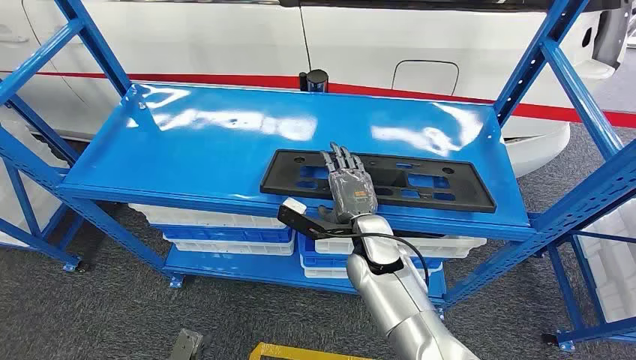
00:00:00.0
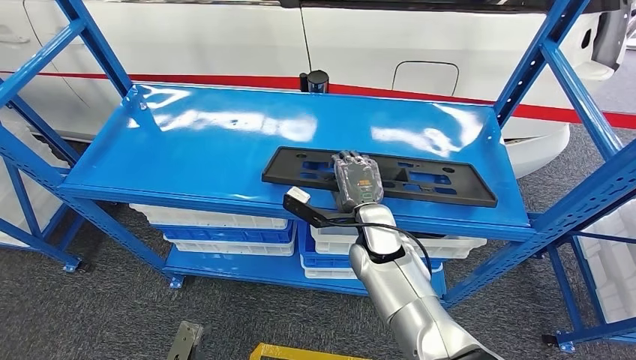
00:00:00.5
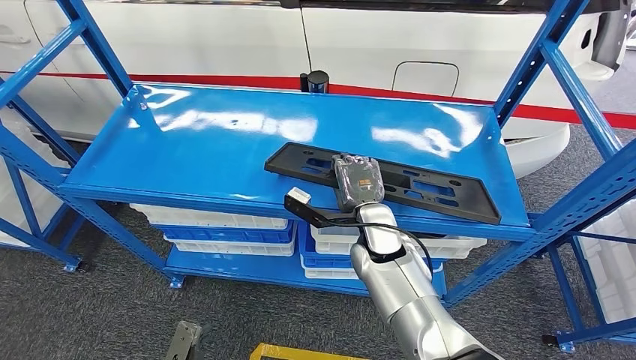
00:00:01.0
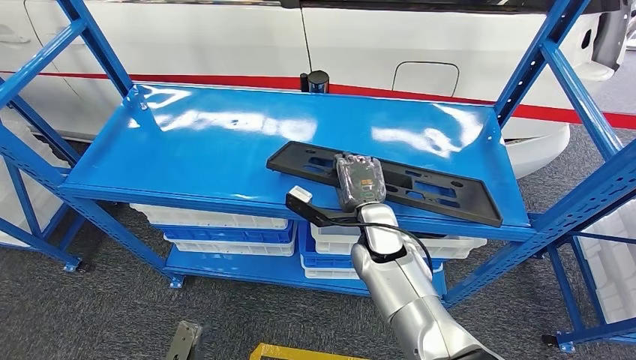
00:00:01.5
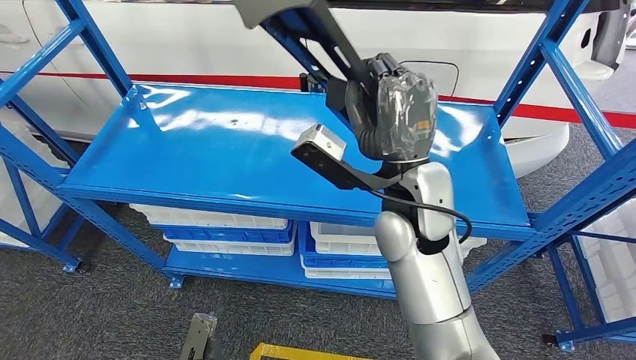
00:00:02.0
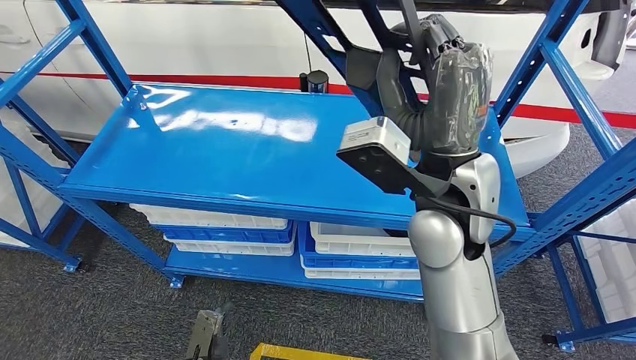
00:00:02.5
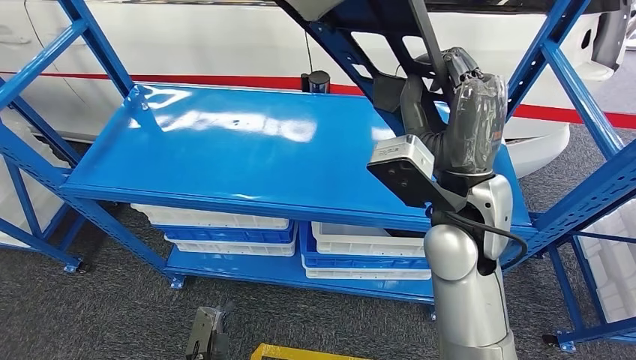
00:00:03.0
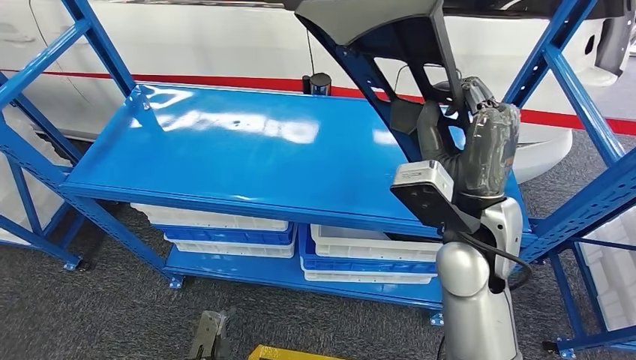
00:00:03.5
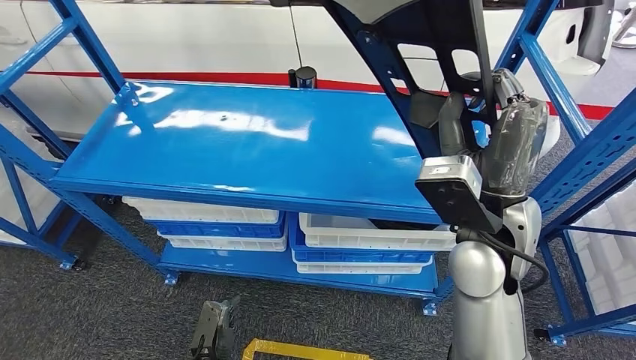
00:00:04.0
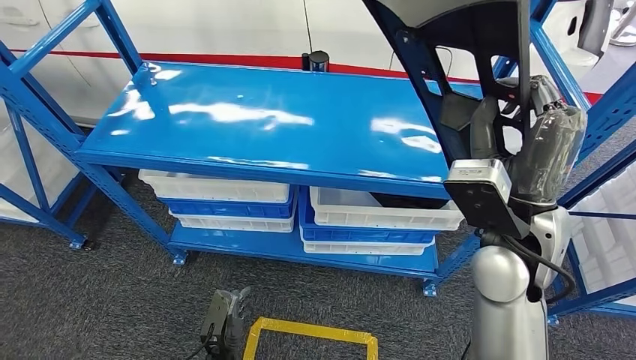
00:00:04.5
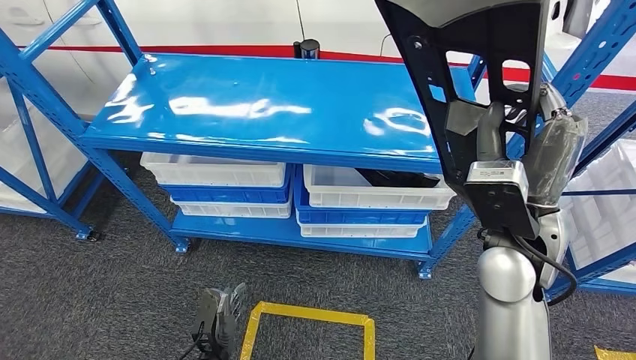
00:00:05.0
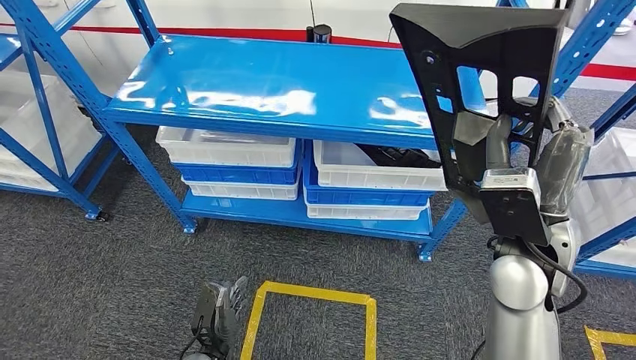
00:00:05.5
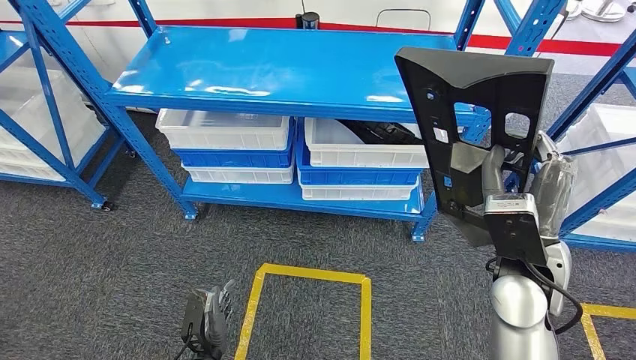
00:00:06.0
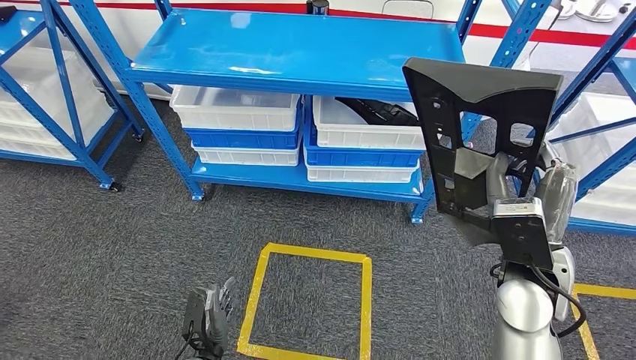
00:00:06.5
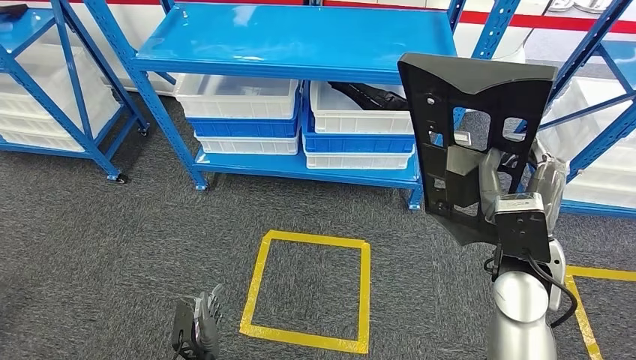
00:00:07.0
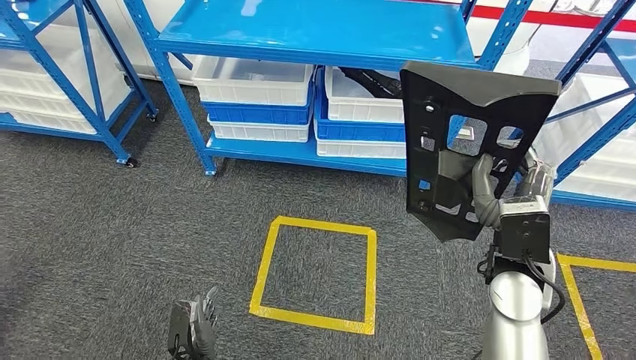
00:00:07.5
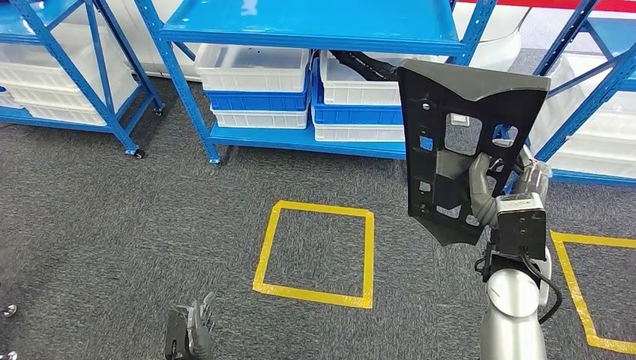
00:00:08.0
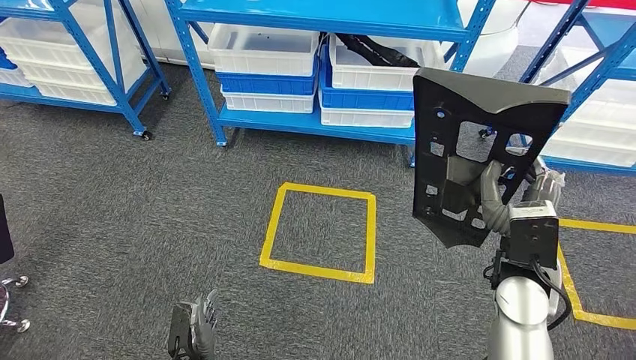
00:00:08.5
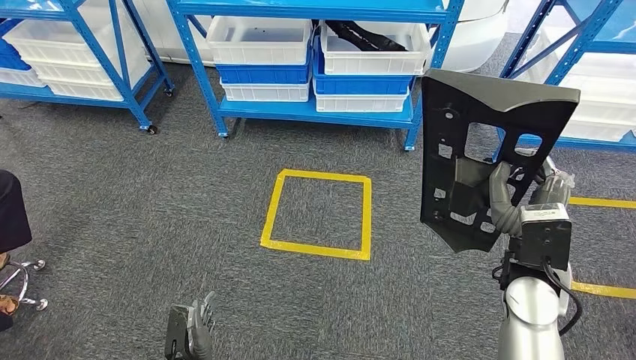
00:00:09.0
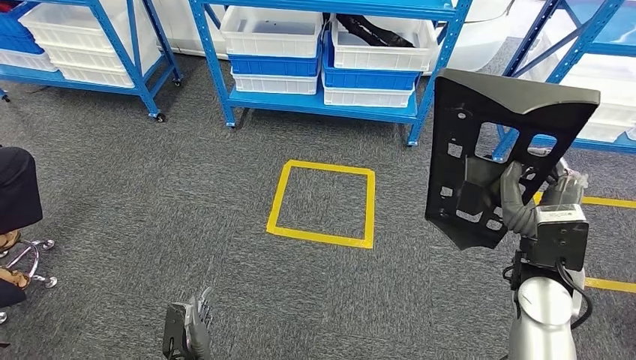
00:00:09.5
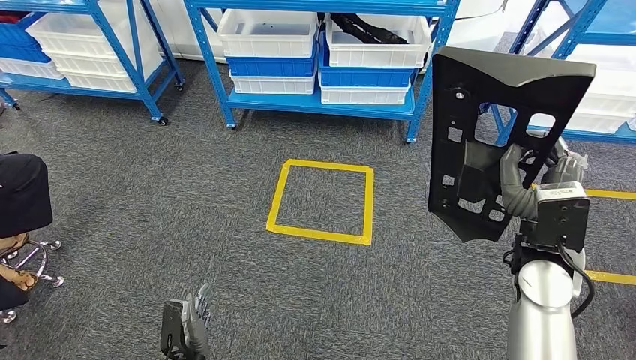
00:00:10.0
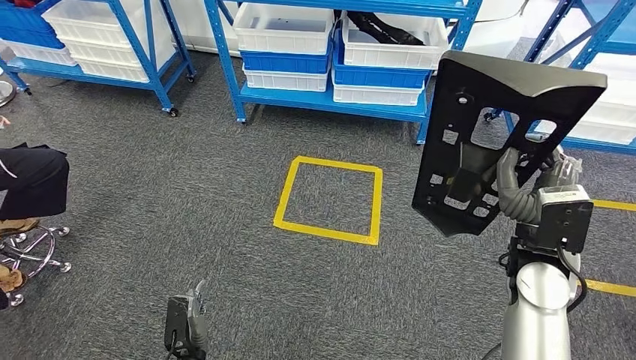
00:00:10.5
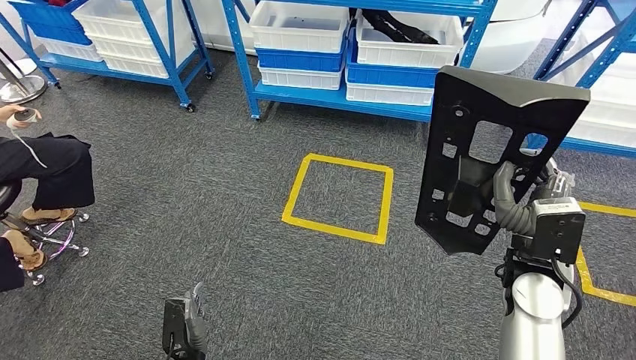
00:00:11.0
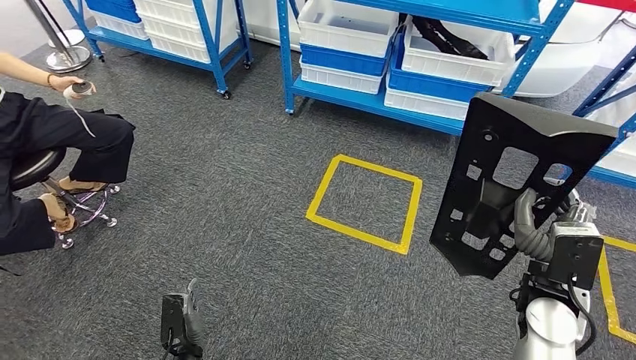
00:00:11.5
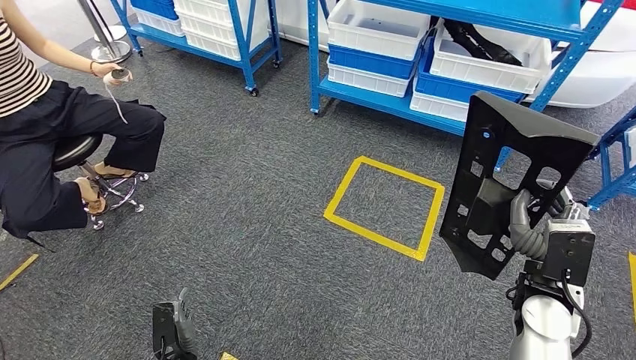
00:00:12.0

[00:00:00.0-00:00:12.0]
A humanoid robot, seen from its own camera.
Step, 00:00:00.0 to 00:00:04.5: Pick up the large material from the shelf.

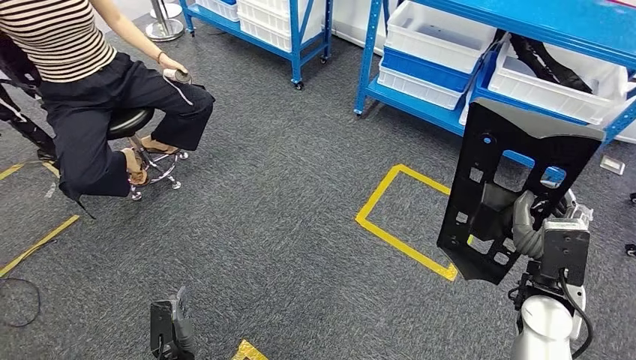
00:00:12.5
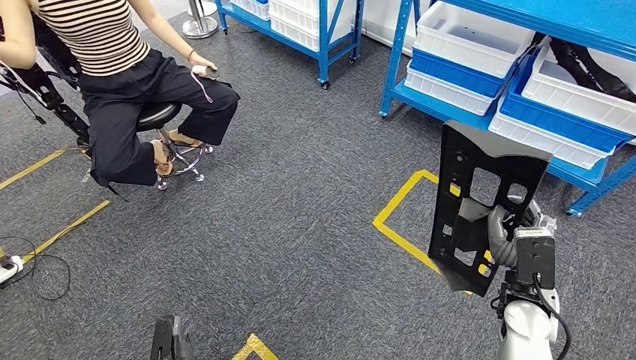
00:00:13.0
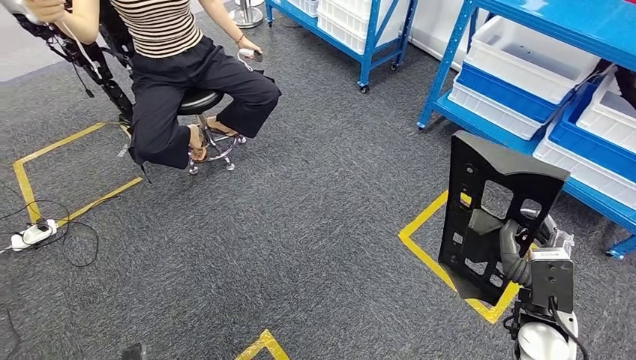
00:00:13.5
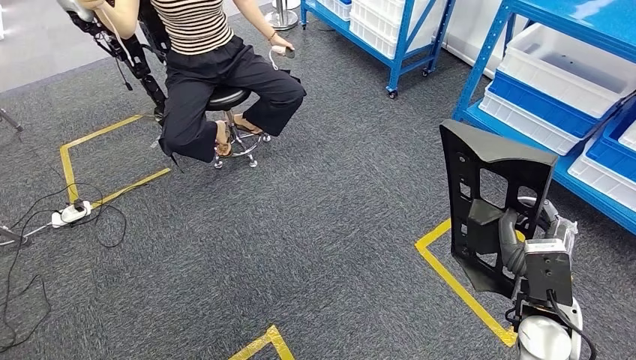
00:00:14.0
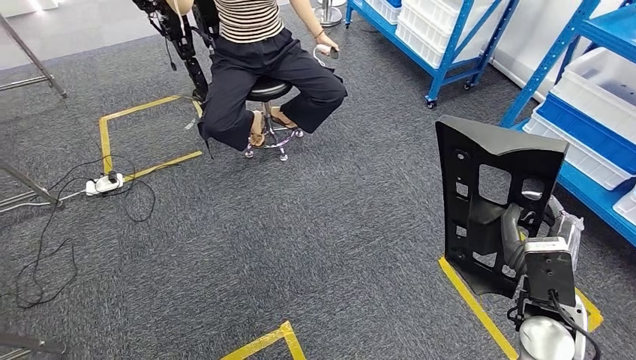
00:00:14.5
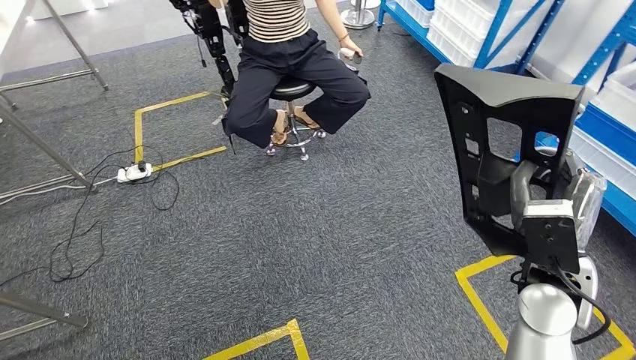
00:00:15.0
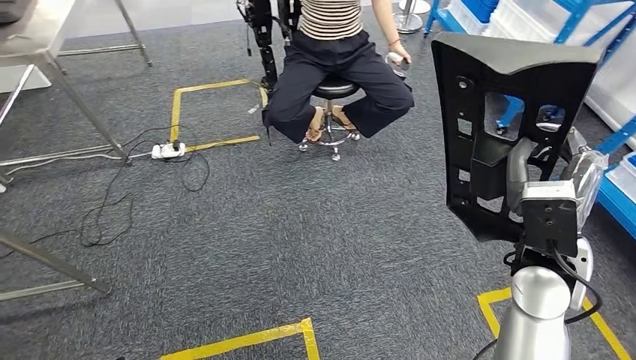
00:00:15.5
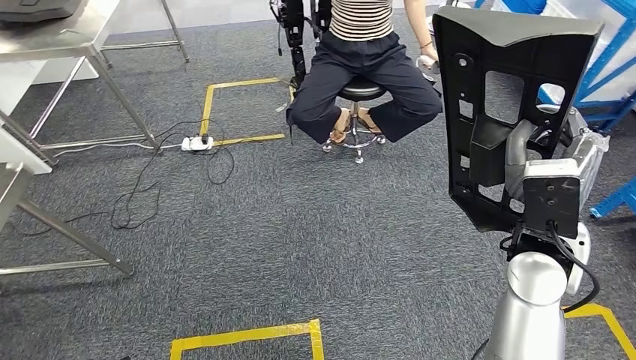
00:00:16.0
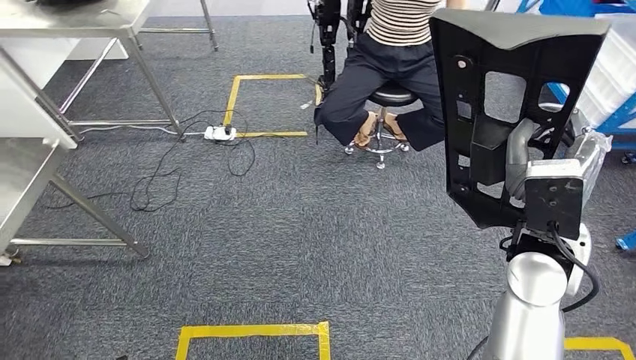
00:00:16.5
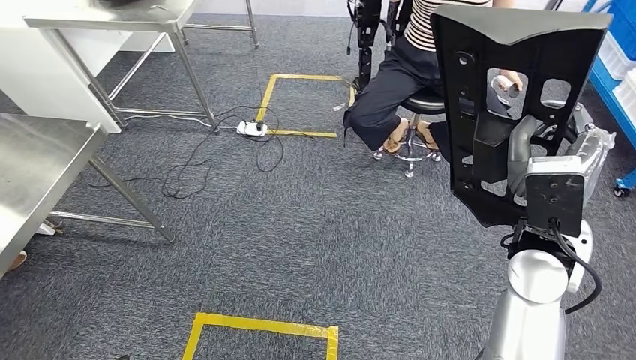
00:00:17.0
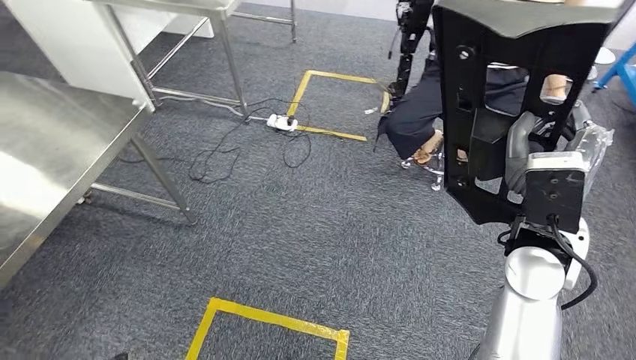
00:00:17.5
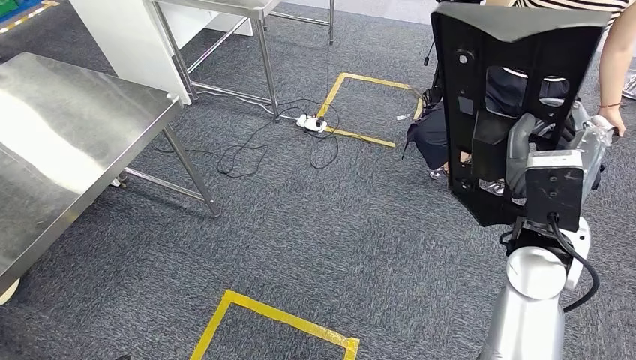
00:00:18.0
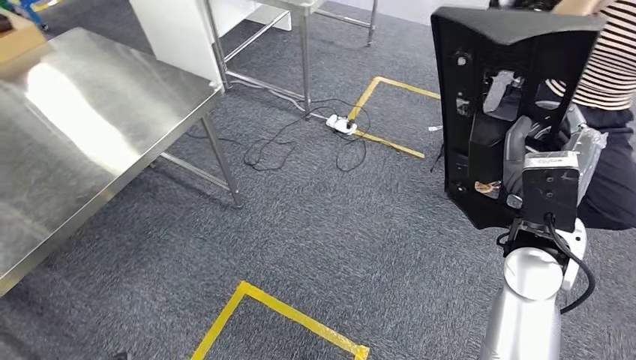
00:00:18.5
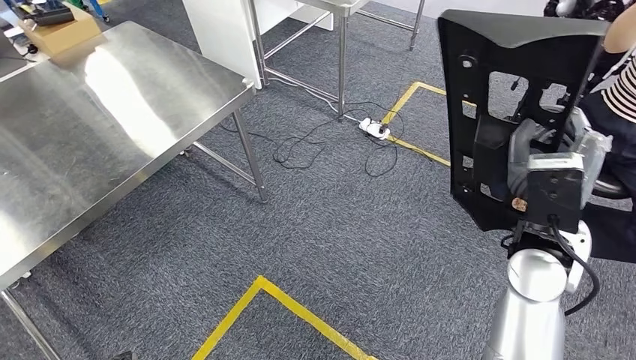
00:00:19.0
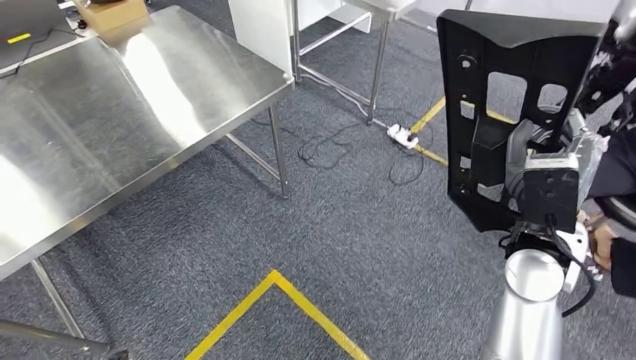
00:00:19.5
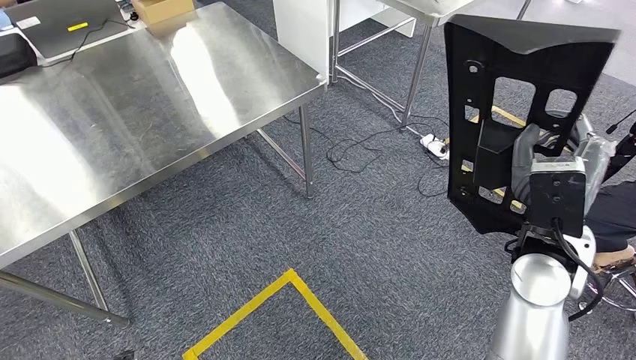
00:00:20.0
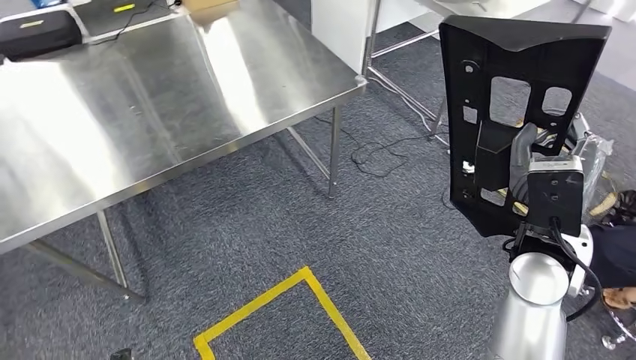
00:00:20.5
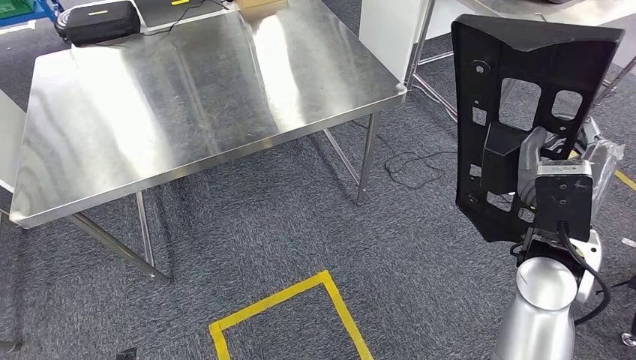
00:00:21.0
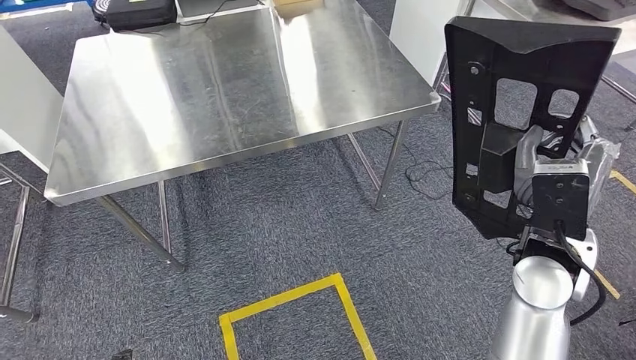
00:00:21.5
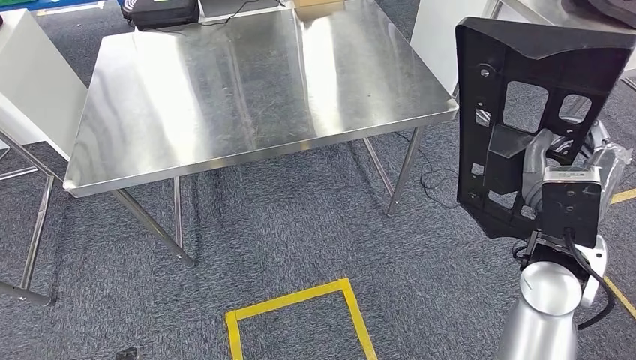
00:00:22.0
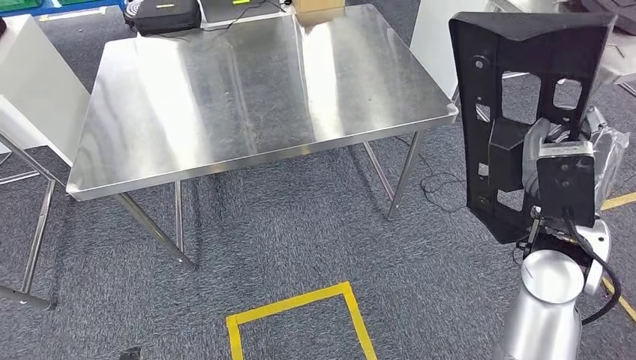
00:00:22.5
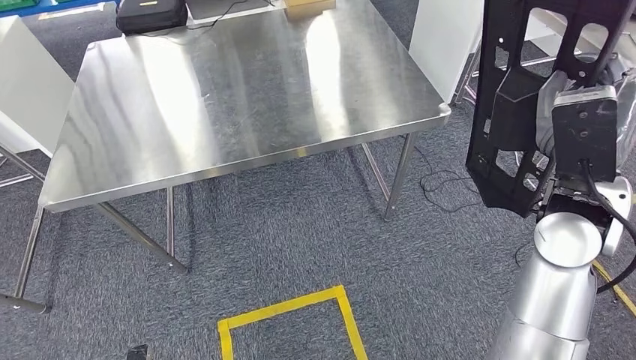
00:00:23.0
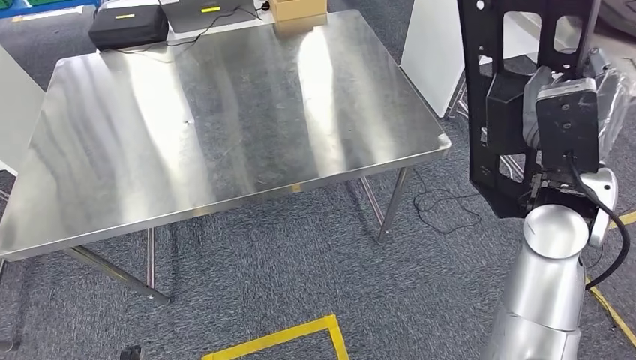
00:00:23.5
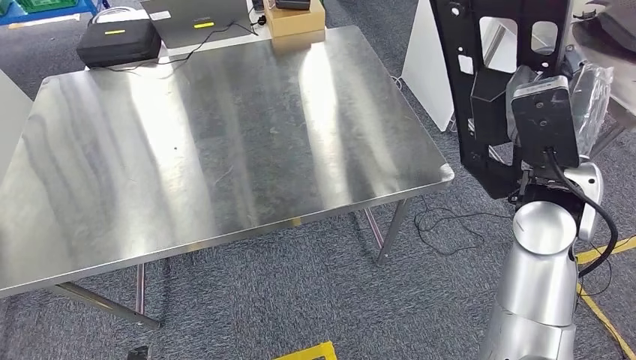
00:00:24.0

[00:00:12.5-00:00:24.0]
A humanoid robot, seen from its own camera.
Step, 00:00:12.5 to 00:00:21.5: Move the large material to the workbench.
